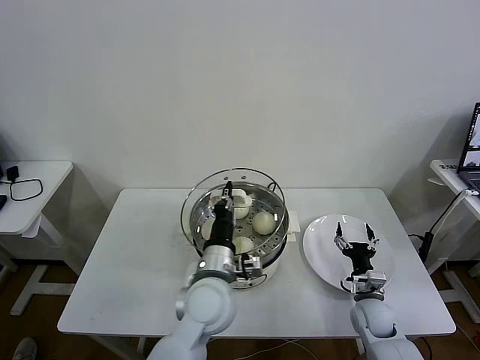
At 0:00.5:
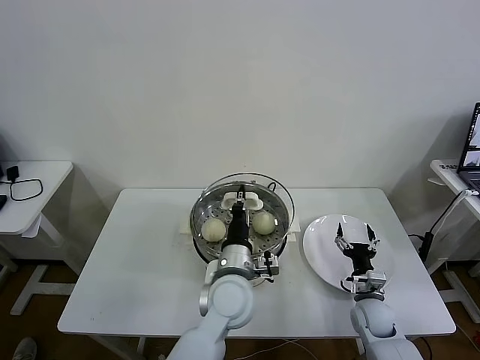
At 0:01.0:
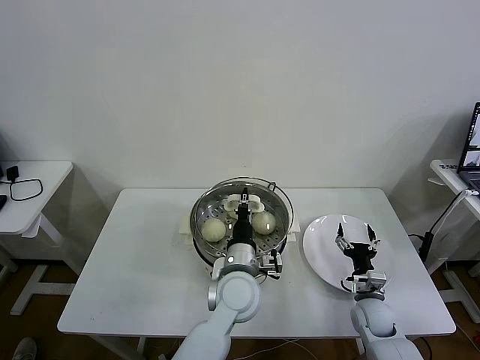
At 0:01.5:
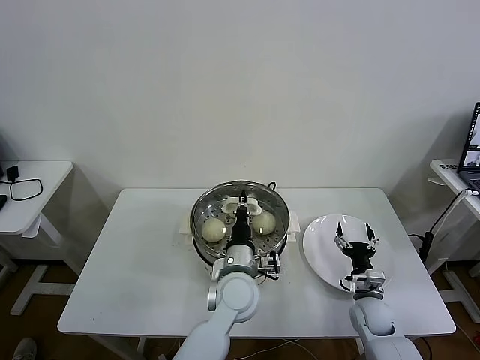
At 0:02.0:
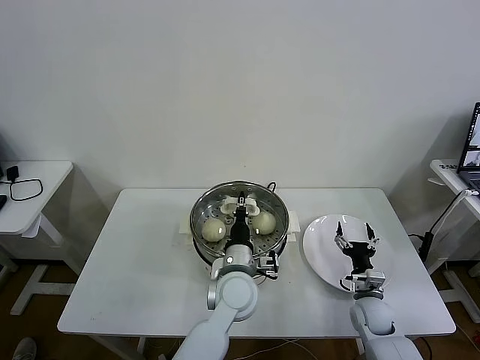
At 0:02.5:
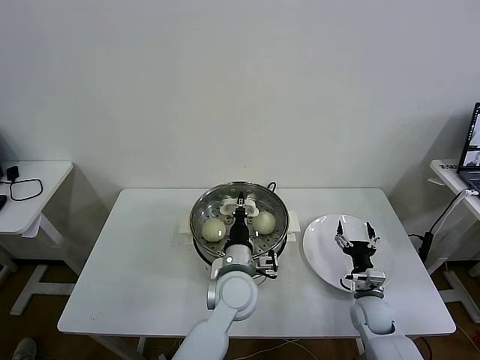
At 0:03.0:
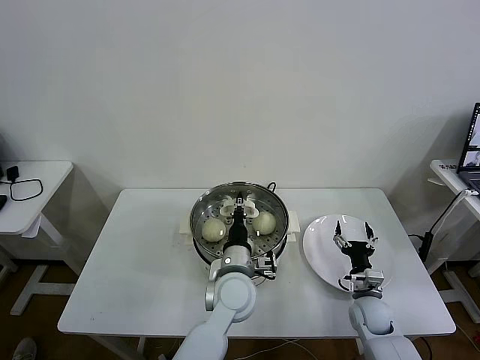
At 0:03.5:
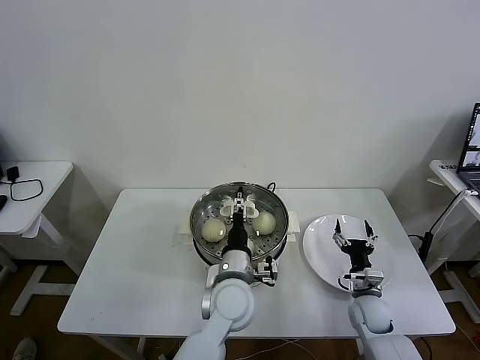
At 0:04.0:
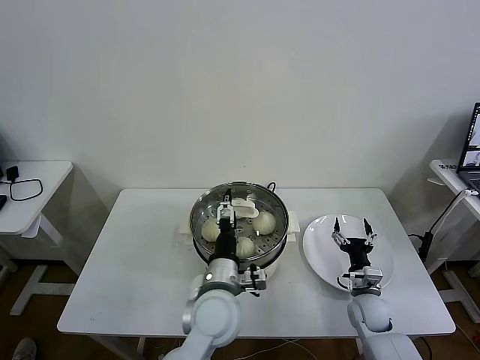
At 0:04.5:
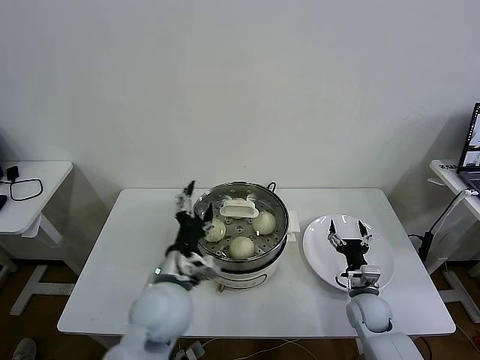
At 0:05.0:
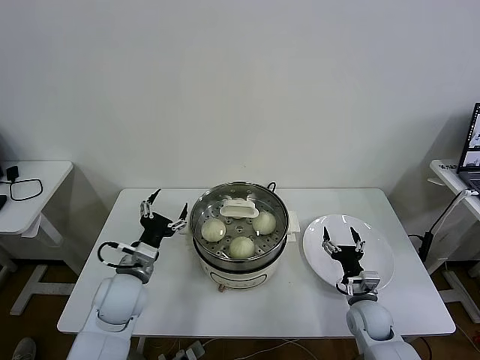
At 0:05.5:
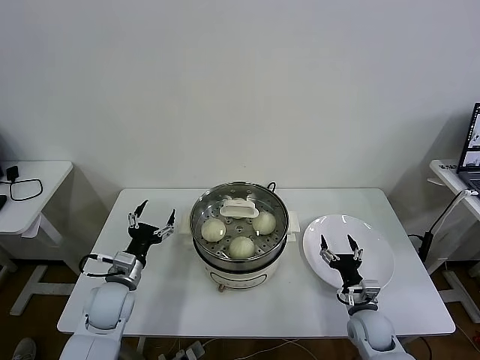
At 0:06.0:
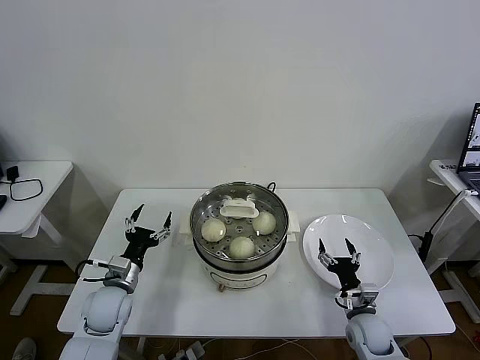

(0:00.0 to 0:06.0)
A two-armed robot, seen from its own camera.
Task of the whole recording: take steamed baozi put them in steamer then cover it.
Step, 0:00.0 - 0:03.5: Place the pot lid on the steamer with left gripper.
0:00.0 - 0:02.0: The left gripper goes about 5 cm to the right and downward.
0:02.0 - 0:04.0: The left gripper changes place by approximately 5 cm, and opens up.
0:04.0 - 0:06.0: The left gripper heads to the left, covering roughly 25 cm.

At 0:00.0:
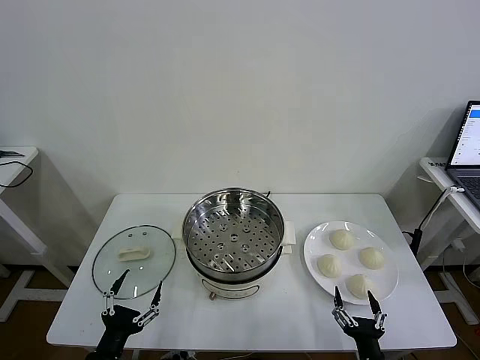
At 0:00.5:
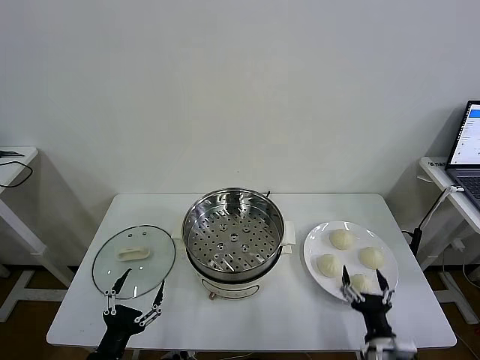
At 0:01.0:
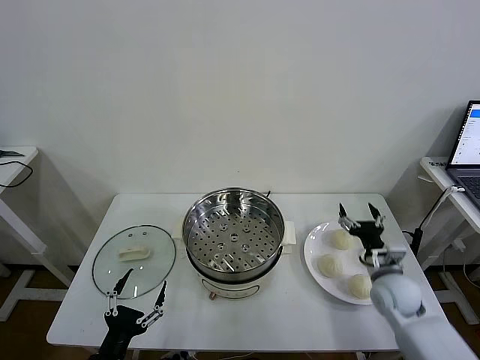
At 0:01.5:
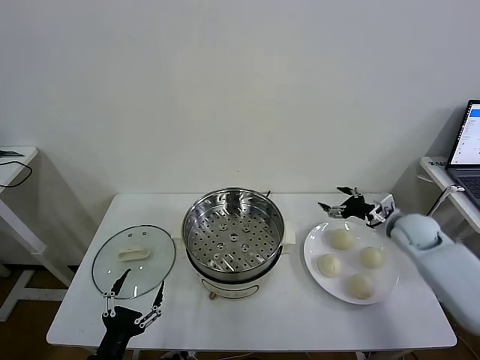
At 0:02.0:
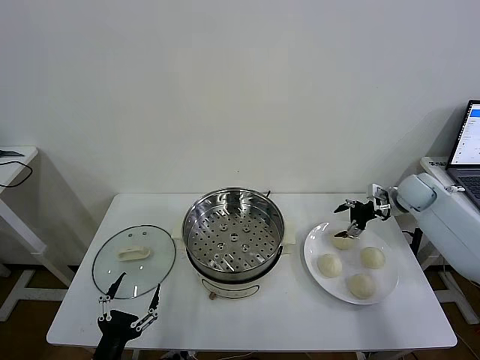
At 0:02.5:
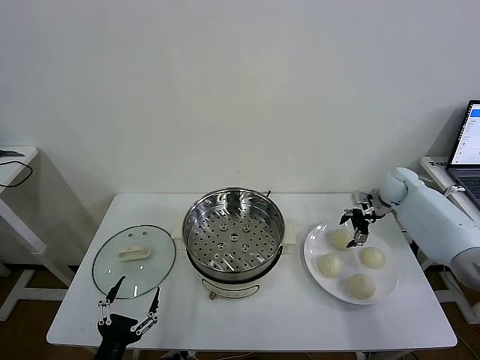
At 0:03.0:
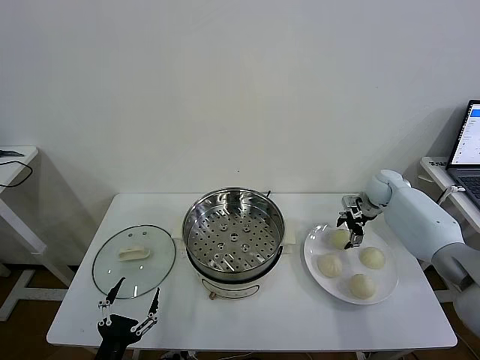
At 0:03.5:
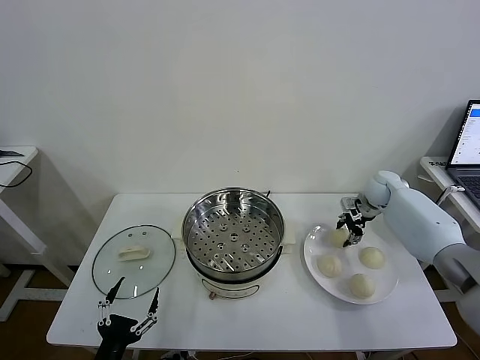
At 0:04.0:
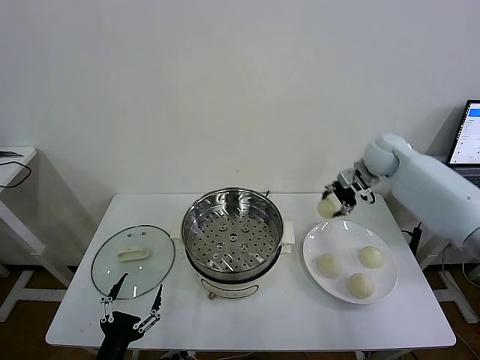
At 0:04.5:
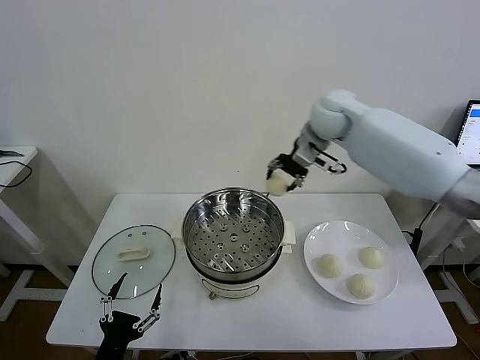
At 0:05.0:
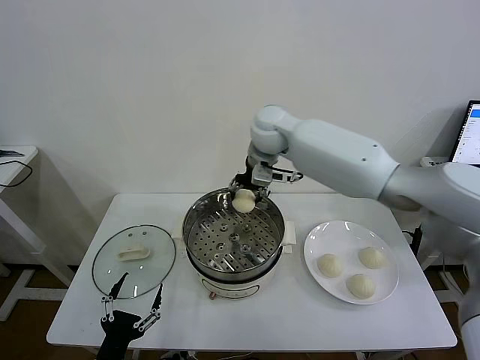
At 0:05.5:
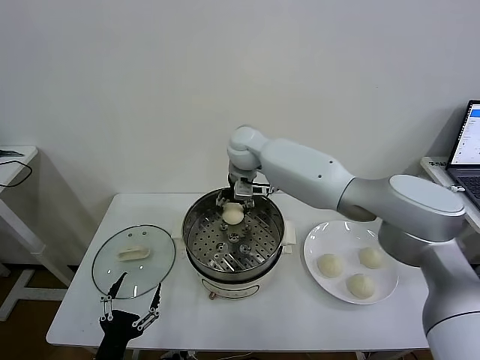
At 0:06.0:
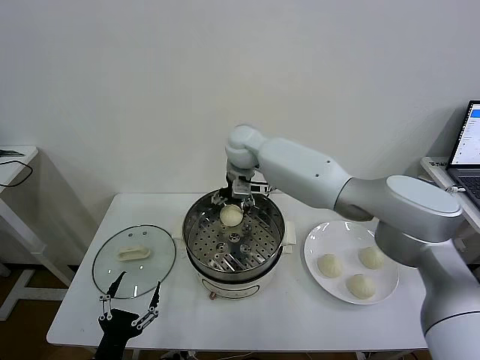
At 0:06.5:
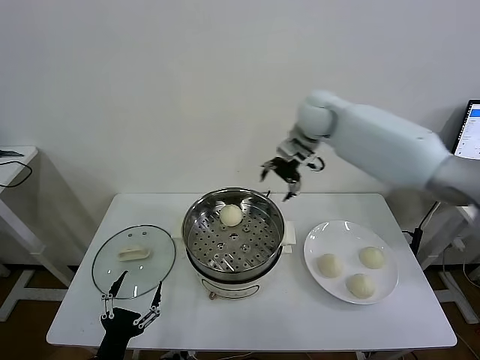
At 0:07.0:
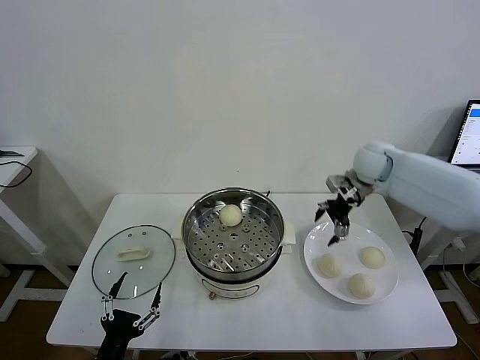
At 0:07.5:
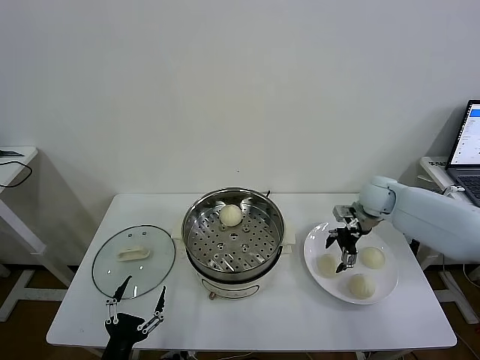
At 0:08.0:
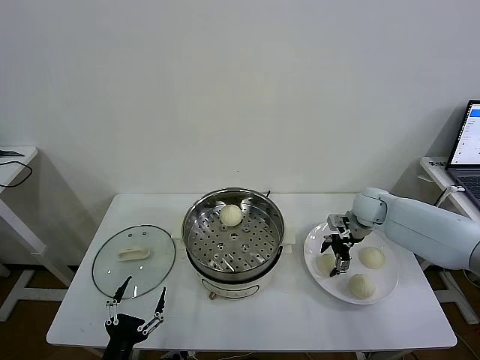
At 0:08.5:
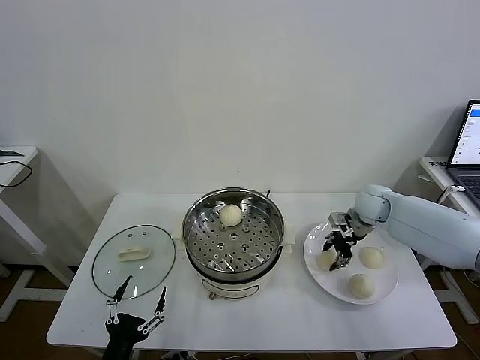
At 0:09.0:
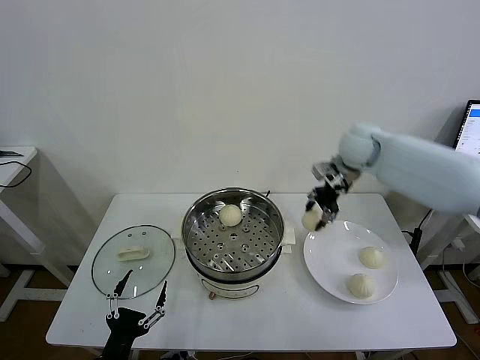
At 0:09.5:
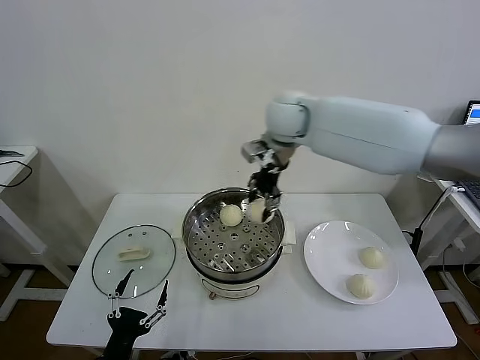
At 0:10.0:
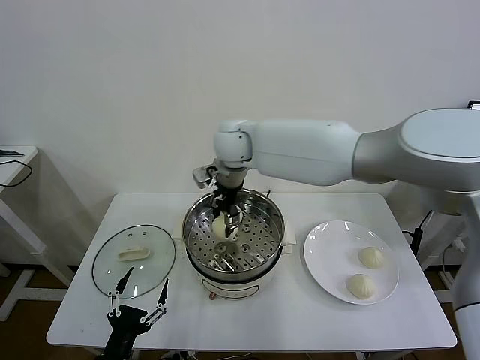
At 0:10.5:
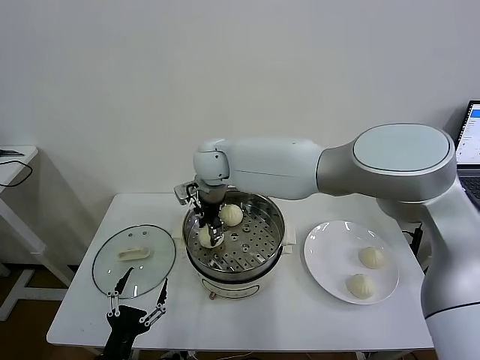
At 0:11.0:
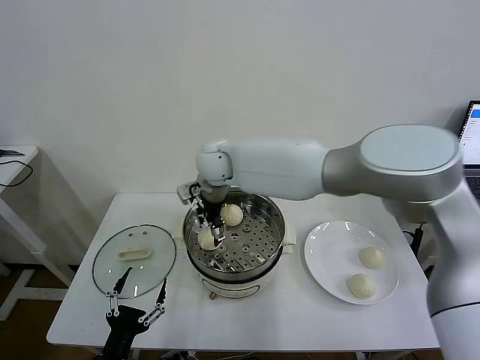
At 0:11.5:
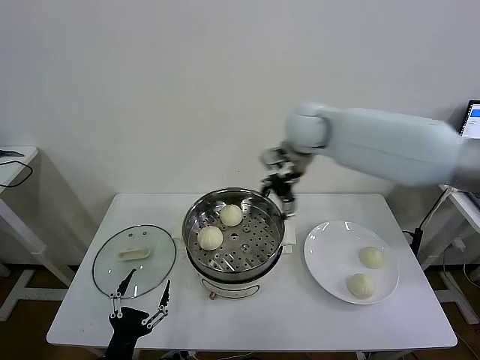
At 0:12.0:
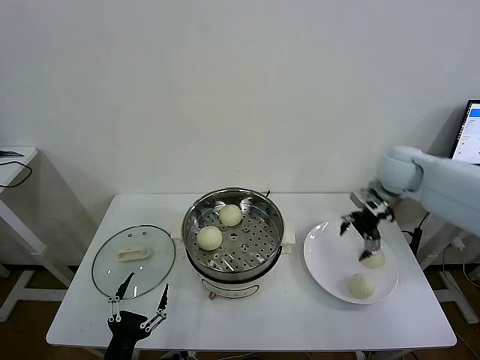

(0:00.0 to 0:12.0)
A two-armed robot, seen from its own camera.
Task of the whole recording: take steamed baozi put them in steamer then cover it.
Step, 0:00.0 - 0:03.0: Grasp the baozi in the plate with right gripper.
Step, 0:03.5 - 0:05.5: Place the baozi on the steamer with right gripper.
Step, 0:06.5 - 0:08.0: Grasp the baozi in the plate with right gripper.
Step, 0:08.5 - 0:10.5: Place the baozi on the steamer with right gripper.
0:02.0 - 0:04.0: The right gripper shifts some 15 cm to the left and upward, and closes.
0:04.0 - 0:06.0: The right gripper heads to the left, covering approximately 30 cm, and opens its fingers.
0:06.0 - 0:08.0: The right gripper is displaced to the right and downward by some 35 cm.
0:08.0 - 0:10.0: The right gripper goes about 40 cm to the left and upward, and closes up.
0:10.0 - 0:12.0: The right gripper heads to the right, covering about 40 cm, and opens.

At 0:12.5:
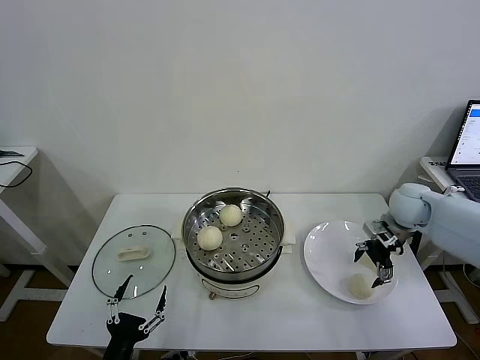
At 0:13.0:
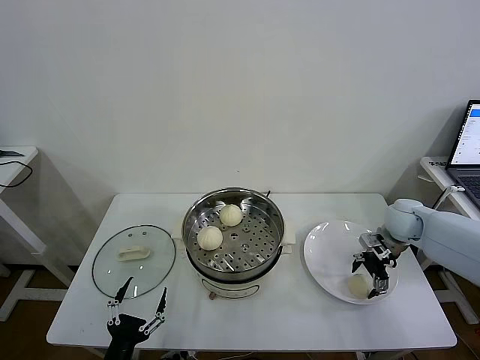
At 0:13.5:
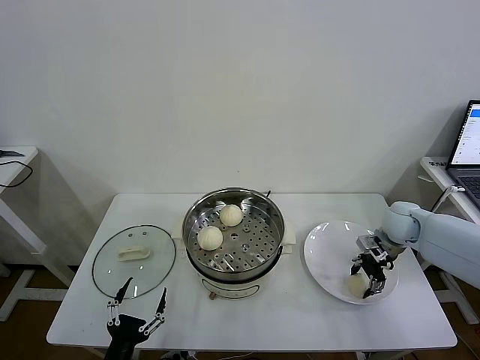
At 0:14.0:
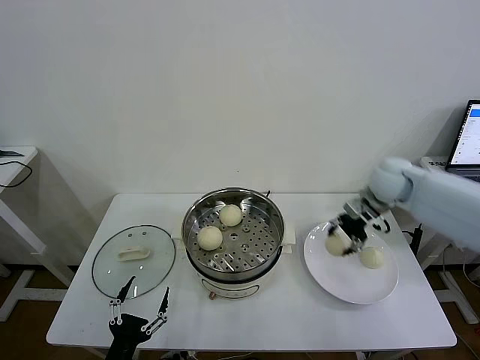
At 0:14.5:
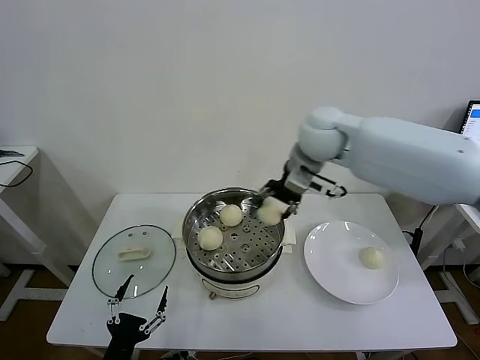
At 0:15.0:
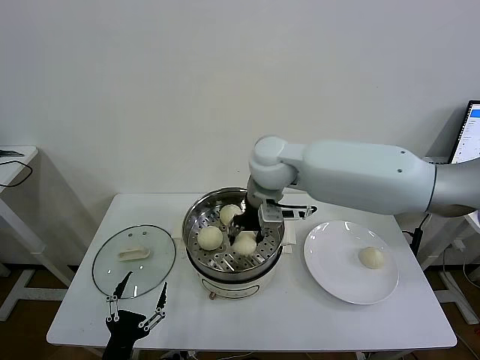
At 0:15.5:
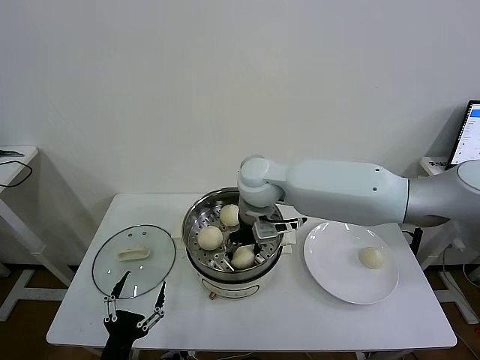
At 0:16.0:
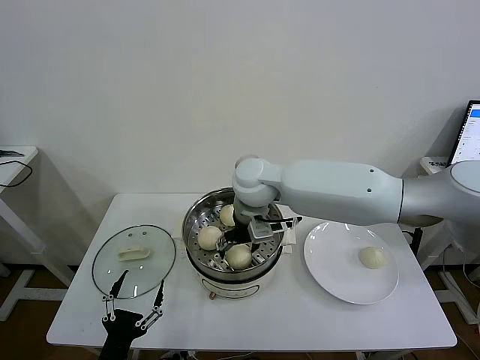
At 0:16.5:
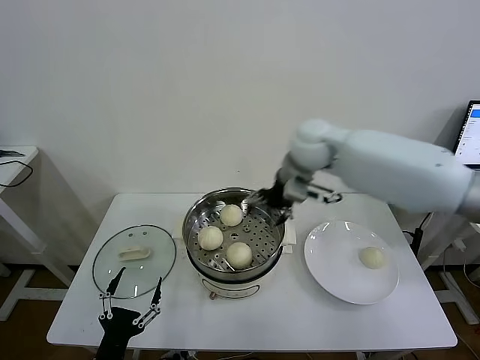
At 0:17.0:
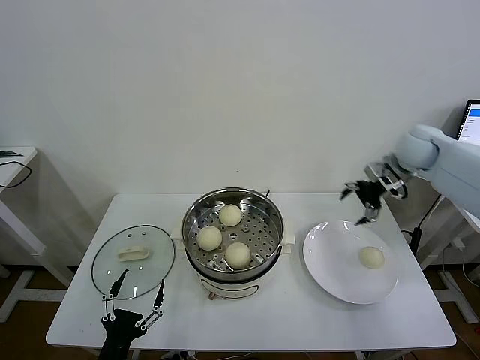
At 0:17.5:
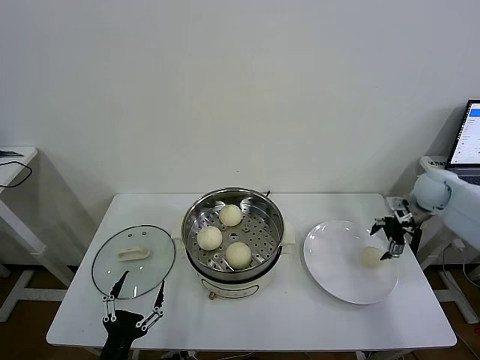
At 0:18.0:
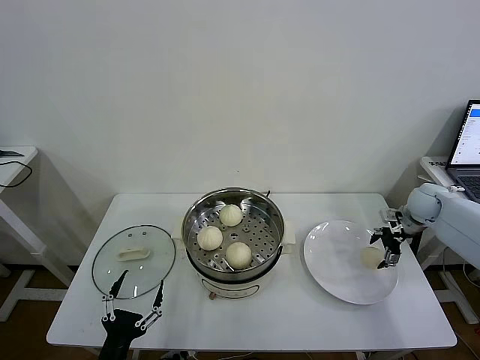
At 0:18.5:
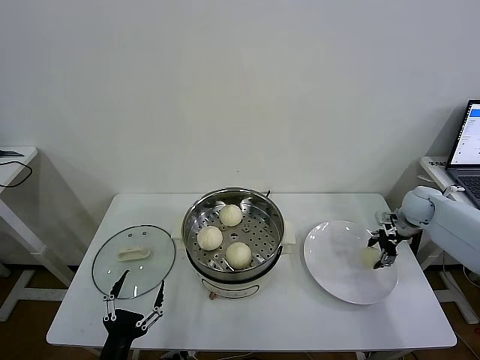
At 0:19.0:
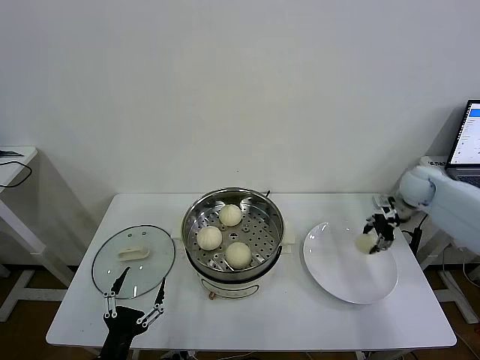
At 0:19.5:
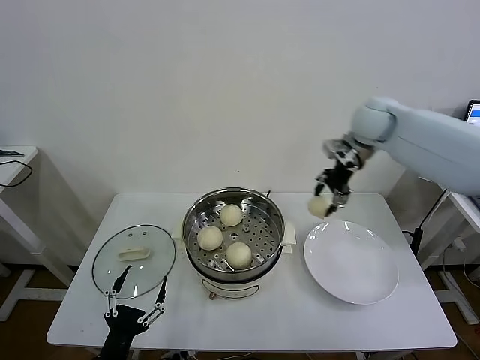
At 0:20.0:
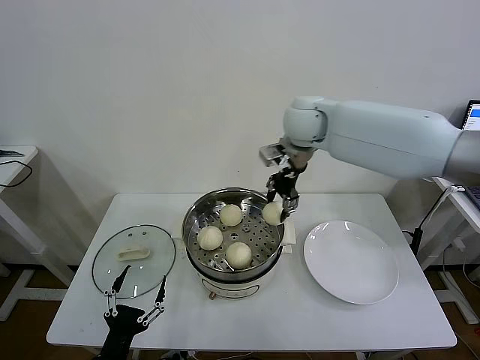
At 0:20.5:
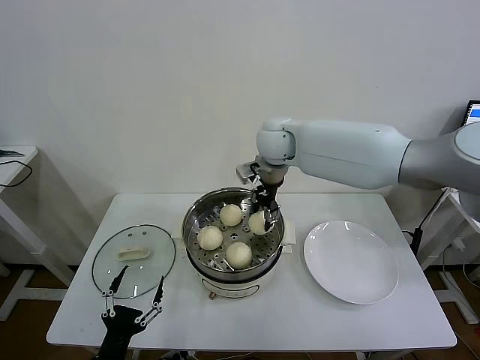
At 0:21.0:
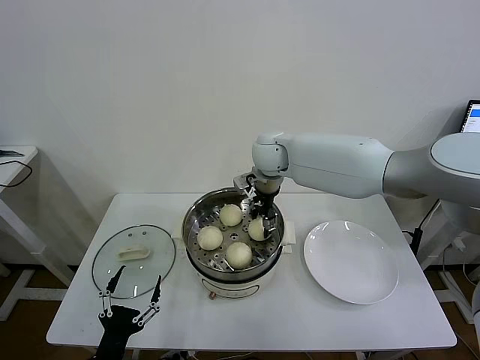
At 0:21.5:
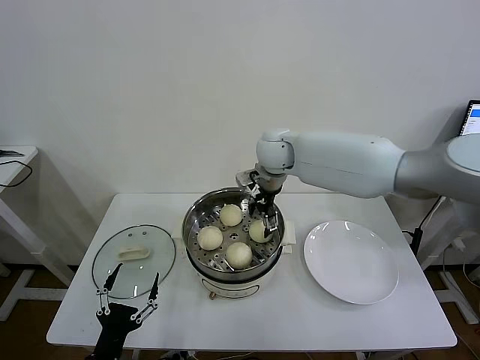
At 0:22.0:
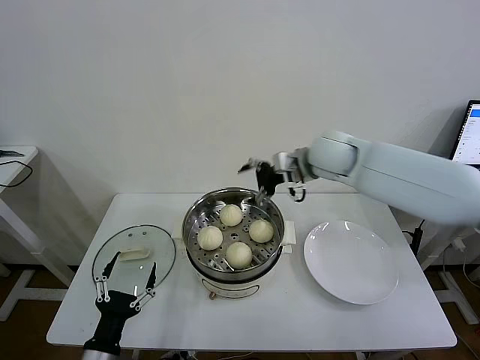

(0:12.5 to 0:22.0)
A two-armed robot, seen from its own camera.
Task of the whole recording: take steamed baozi put them in steamer then cover it.
Step, 0:14.0 - 0:16.0: Place the baozi on the steamer with right gripper.
Step, 0:16.5 - 0:18.5: Grasp the baozi in the plate with right gripper.
Step, 0:19.0 - 0:21.0: Place the baozi on the steamer with right gripper.
0:12.5 - 0:14.5: The right gripper goes some 30 cm to the left and upward, and closes up.
0:14.5 - 0:16.5: The right gripper reaches roughly 10 cm to the left, then returns, and opens up.
0:16.5 - 0:18.0: The right gripper travels to the right and downward by about 35 cm.
0:18.0 - 0:20.0: The right gripper moves to the left and upward, about 40 cm, and closes up.
0:20.0 - 0:22.0: The right gripper goes approximately 10 cm to the right and downward, and opens its fingers.
